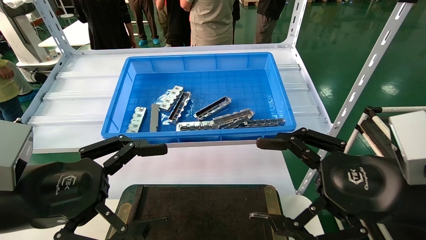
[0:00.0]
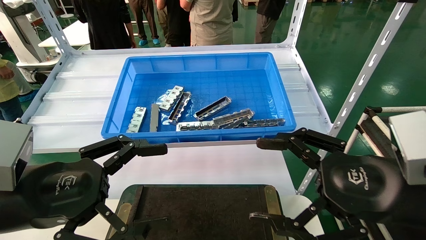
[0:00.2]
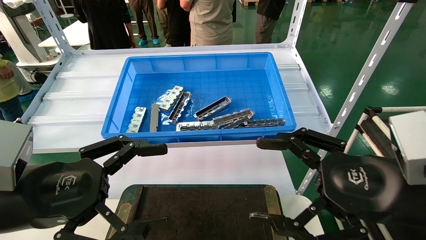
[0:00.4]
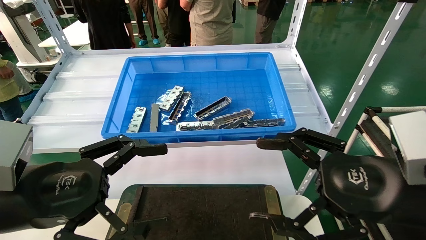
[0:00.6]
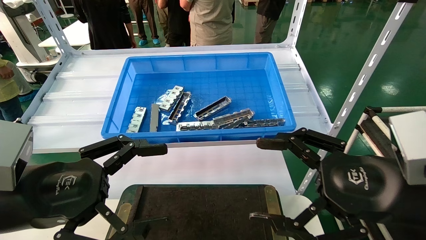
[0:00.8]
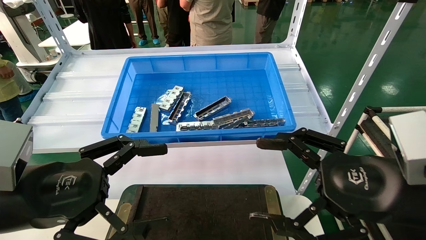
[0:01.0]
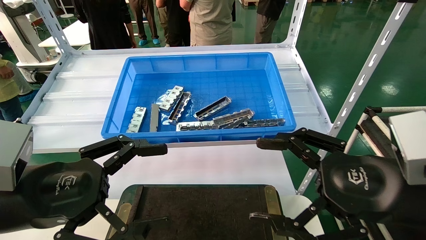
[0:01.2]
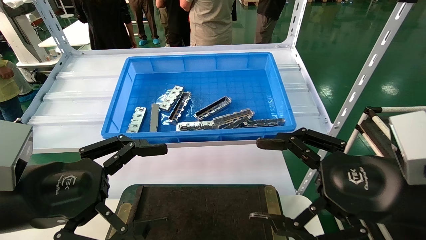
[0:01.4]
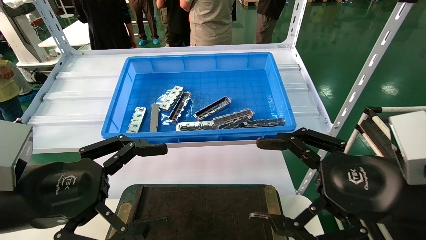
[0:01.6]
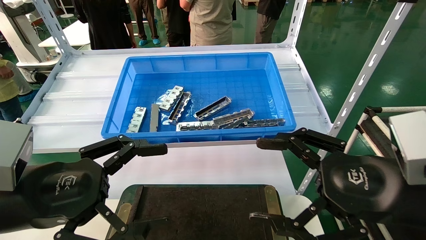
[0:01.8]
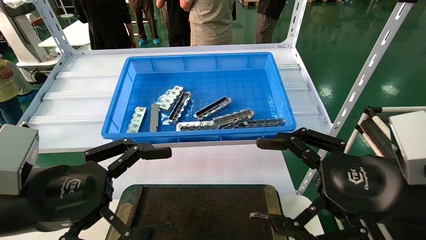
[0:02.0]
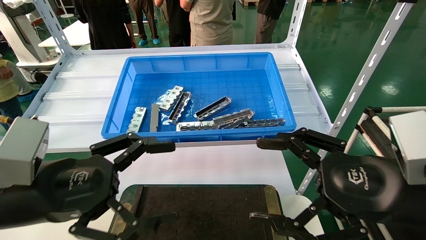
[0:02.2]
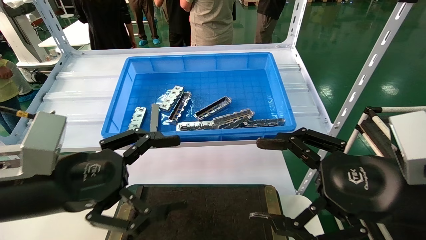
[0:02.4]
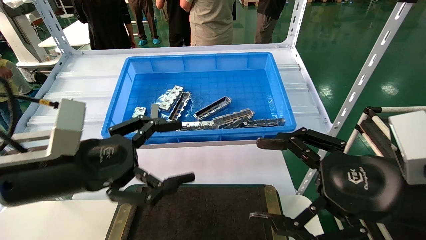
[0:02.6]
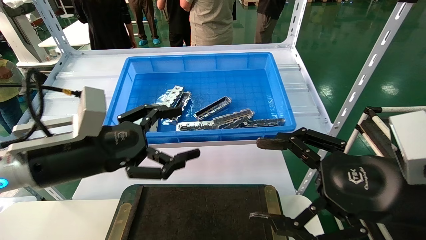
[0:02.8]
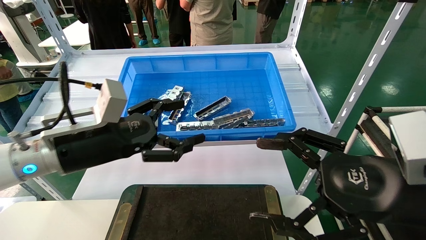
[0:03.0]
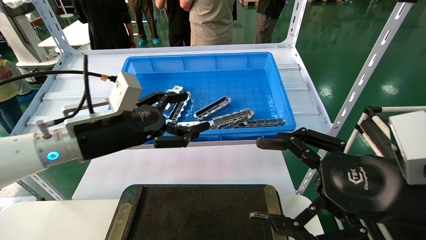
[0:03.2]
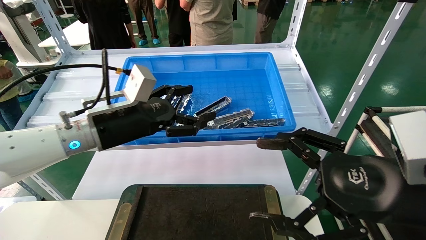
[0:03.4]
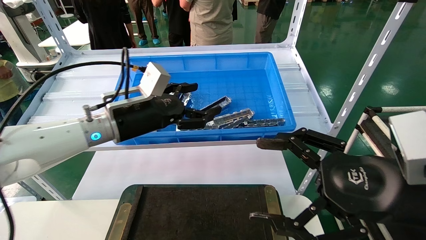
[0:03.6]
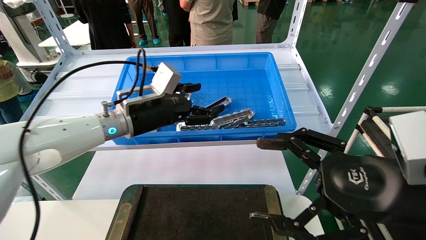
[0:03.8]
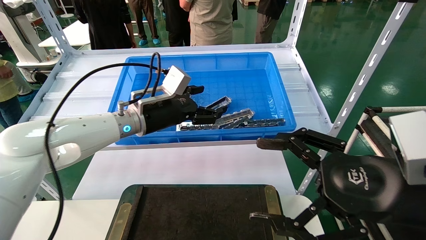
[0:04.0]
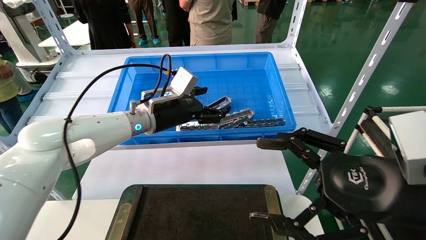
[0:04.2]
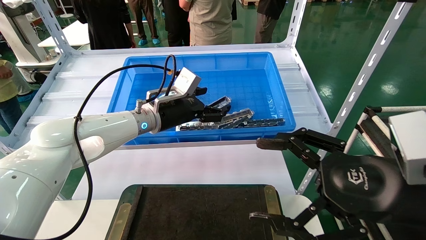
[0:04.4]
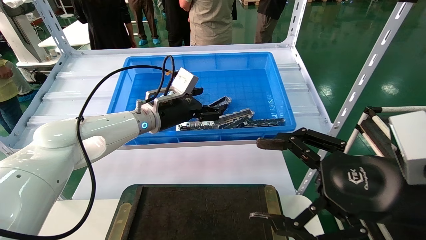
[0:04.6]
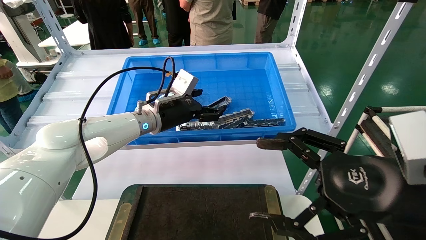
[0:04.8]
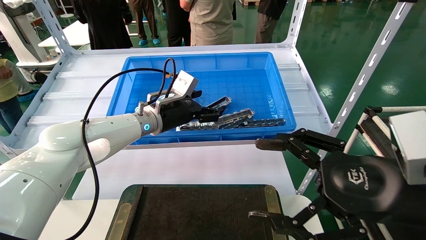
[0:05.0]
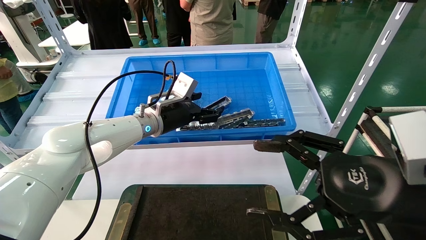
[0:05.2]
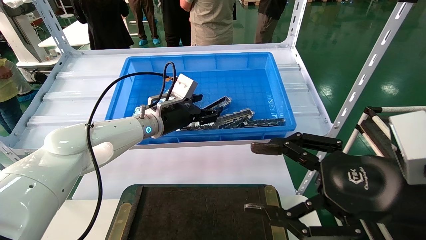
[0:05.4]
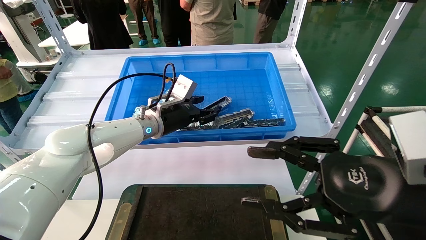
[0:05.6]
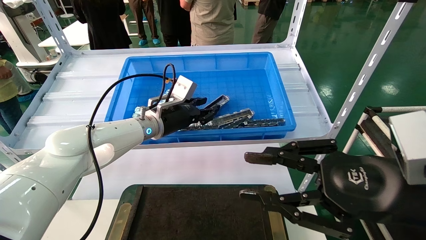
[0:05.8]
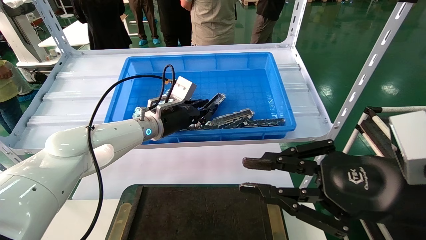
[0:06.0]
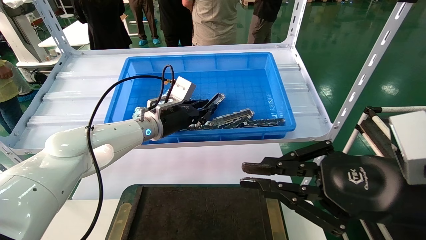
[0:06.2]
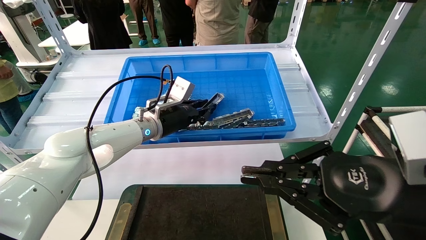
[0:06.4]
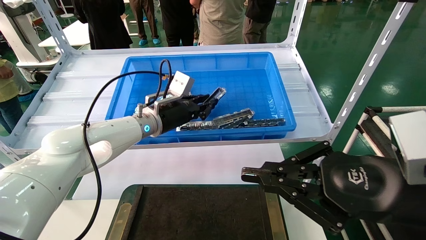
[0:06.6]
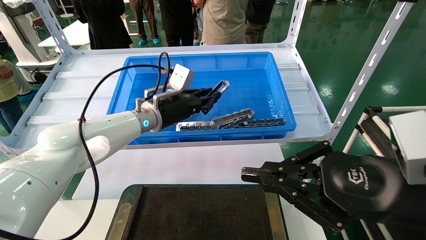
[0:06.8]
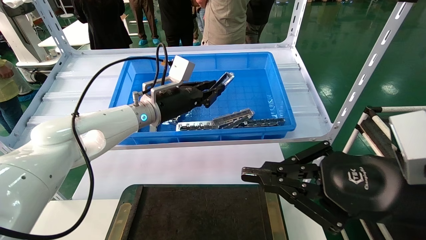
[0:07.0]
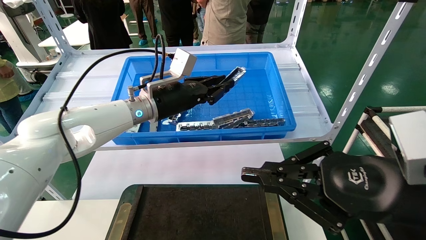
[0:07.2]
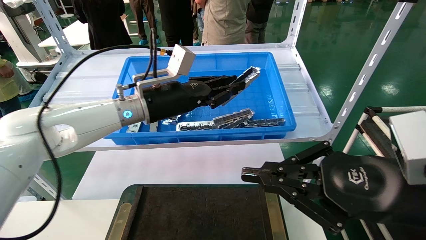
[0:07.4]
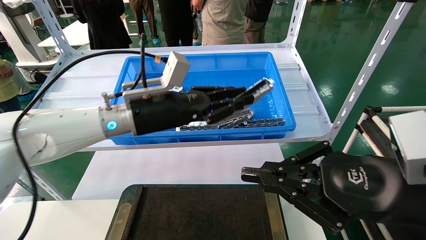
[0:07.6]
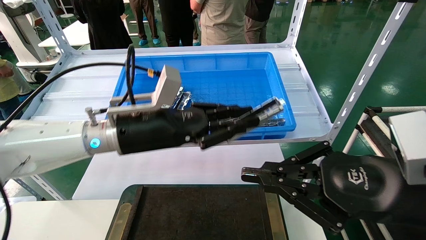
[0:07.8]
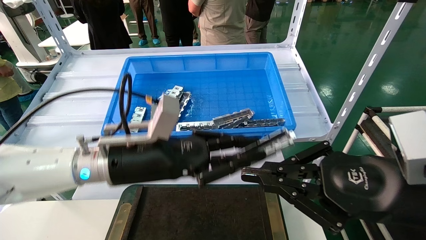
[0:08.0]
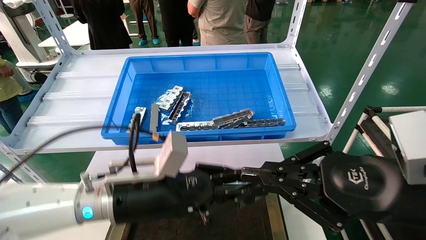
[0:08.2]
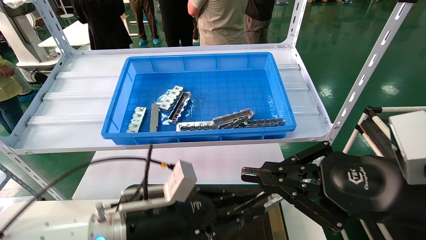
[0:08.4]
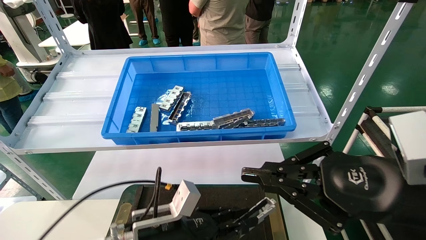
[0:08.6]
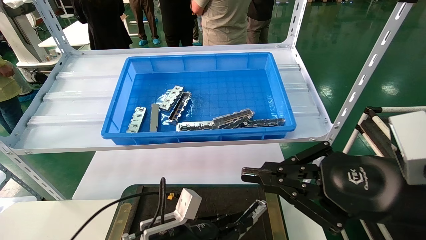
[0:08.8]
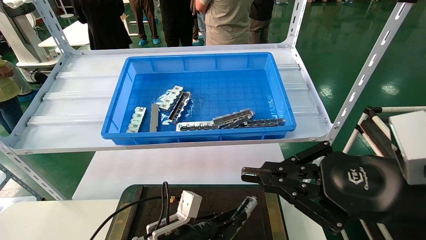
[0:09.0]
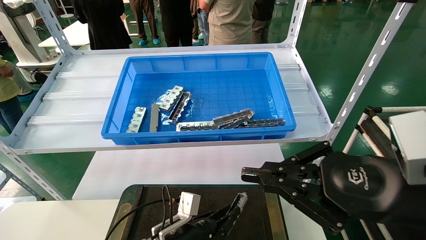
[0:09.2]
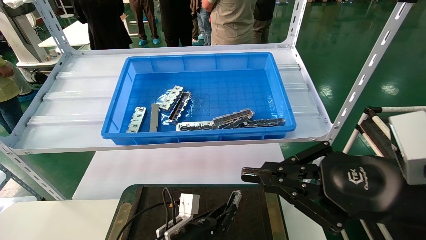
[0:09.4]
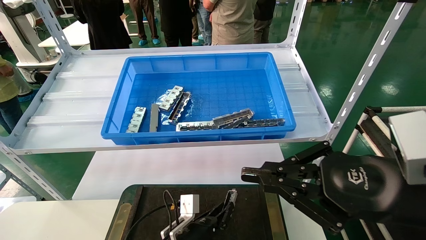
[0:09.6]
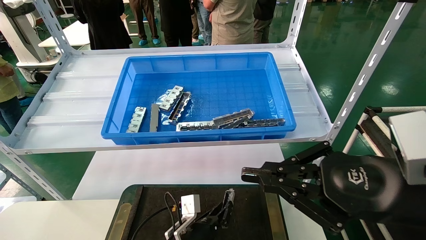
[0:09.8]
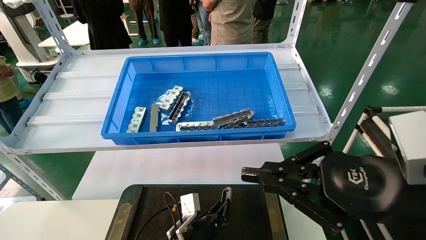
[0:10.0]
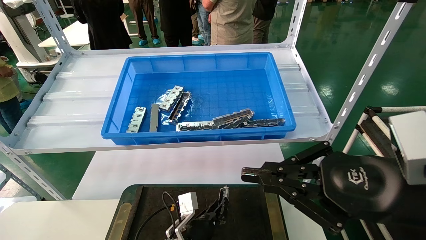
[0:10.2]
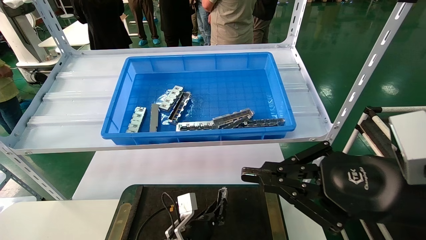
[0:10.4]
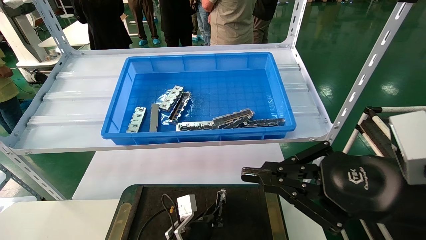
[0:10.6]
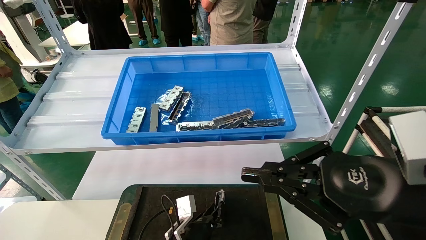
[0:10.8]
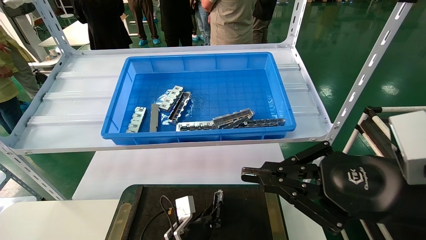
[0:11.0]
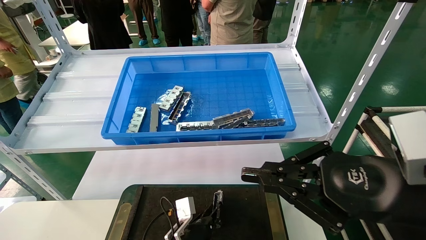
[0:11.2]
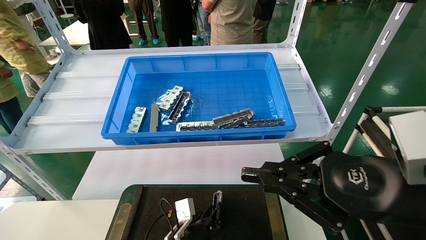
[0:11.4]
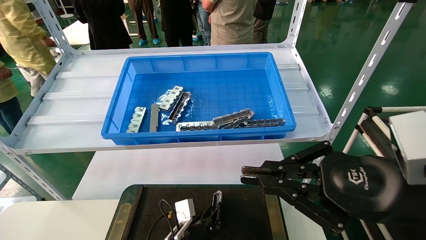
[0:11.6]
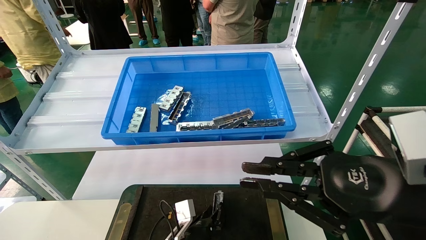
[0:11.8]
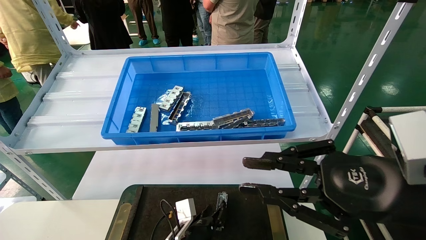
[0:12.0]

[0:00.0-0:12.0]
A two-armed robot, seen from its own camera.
Task of the whole recording: Grasp the part with one hand and place it on the black container.
Step, 0:02.2 to 0:06.0: Pick up the front USB bracket from the feeding area.
Step, 0:06.2 to 0:11.6: Place the front USB bracket into the box.
0:00.0 to 0:01.6: The two grippers keep their place.
0:01.6 to 0:03.0: The left gripper heads forward, covering some 10 cm.
0:03.0 to 0:04.4: The left gripper heads forward and to the right, covering about 20 cm.
0:04.4 to 0:06.0: The right gripper closes its fingers. The left gripper closes.
0:06.0 to 0:07.6: The left gripper travels backward and upward by some 10 cm.
0:07.6 to 0:09.0: The left gripper goes roughly 25 cm downward.
0:09.0 to 0:10.4: The left gripper is displaced downward and forward by some 10 cm.
0:10.4 to 0:12.0: The grippers stay close to where they were, moving slightly.

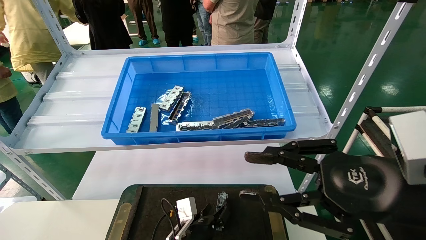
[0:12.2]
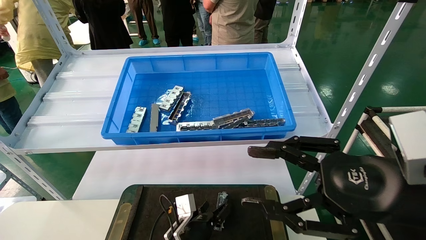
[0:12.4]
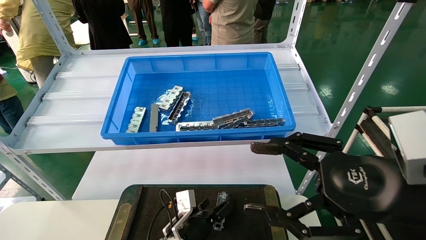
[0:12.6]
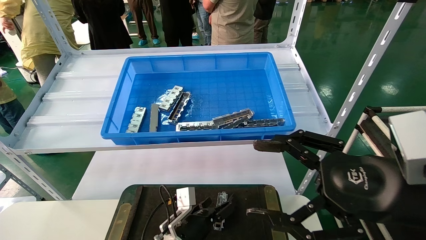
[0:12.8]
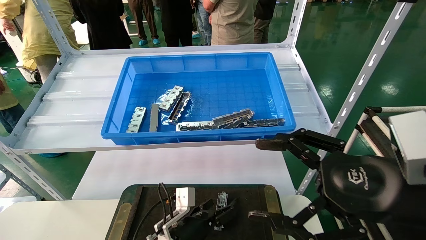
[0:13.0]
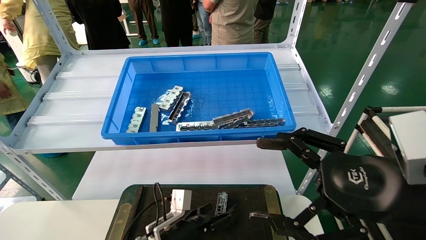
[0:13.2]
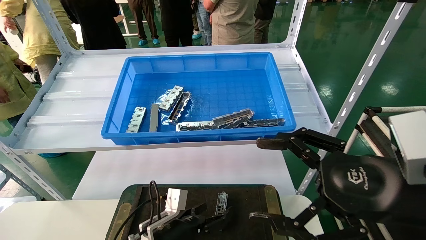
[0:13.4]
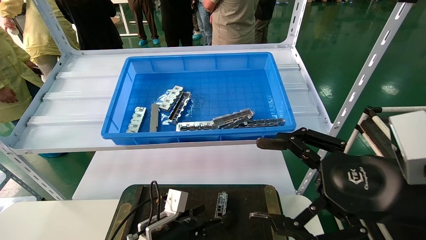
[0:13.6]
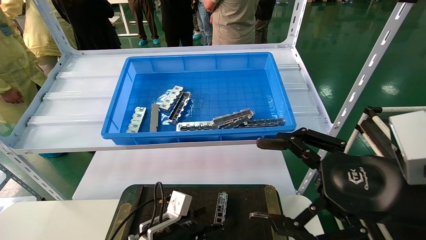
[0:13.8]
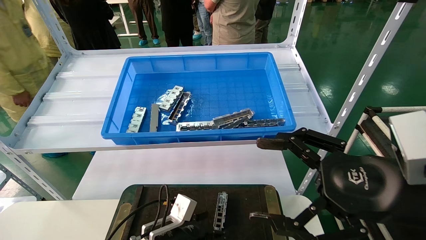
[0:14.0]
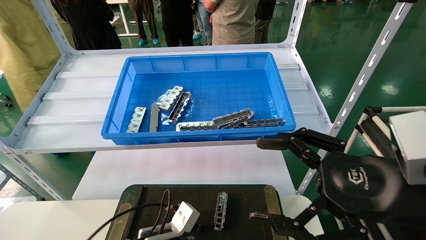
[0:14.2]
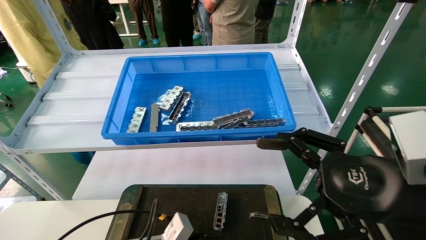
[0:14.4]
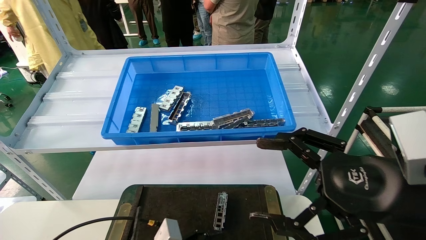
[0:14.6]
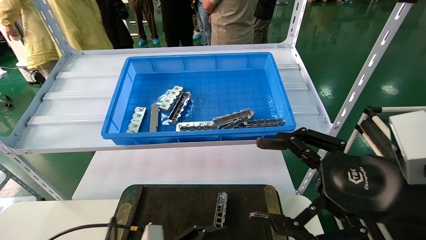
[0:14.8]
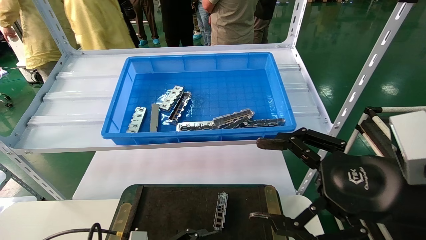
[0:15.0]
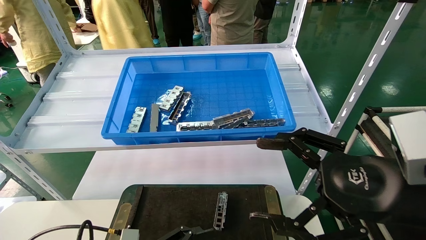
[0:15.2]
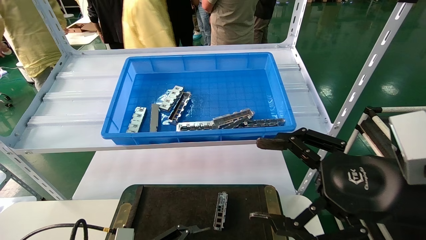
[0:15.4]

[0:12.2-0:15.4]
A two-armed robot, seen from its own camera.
Task of the whole recording: Grasp the part with one hand and place it on the black container.
0:12.2 to 0:13.8: The left gripper heads upward and to the left, covering roughly 10 cm, and opens its fingers. Meanwhile the right gripper opens up.
0:13.8 to 0:15.4: The left gripper goes approximately 10 cm backward and to the left.
